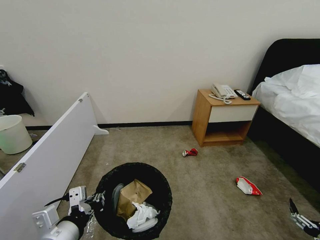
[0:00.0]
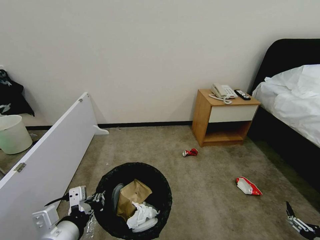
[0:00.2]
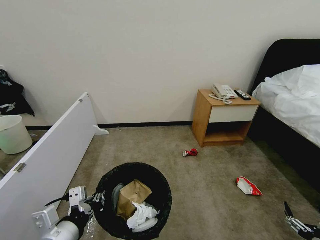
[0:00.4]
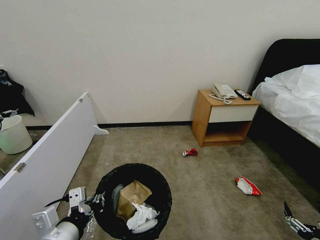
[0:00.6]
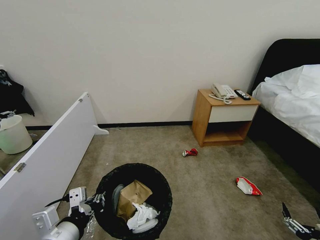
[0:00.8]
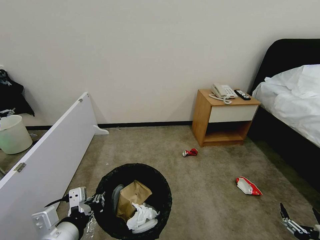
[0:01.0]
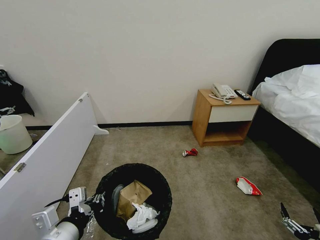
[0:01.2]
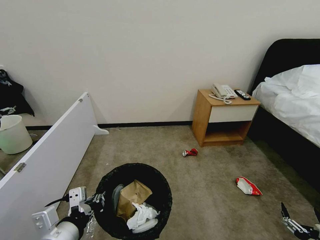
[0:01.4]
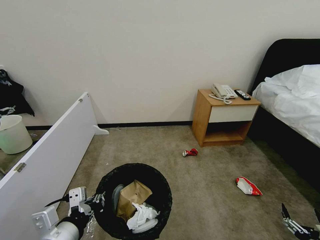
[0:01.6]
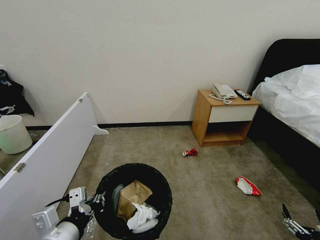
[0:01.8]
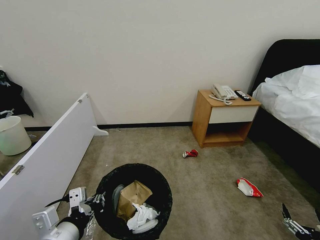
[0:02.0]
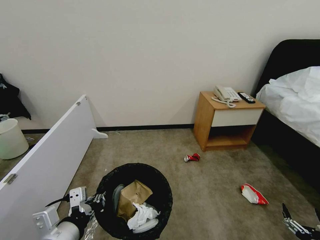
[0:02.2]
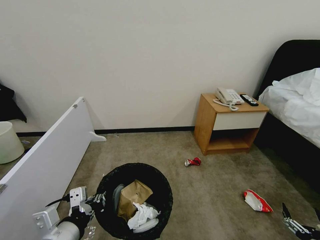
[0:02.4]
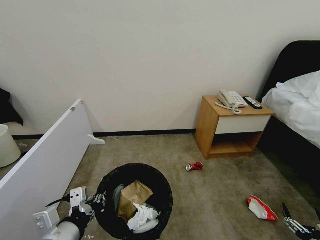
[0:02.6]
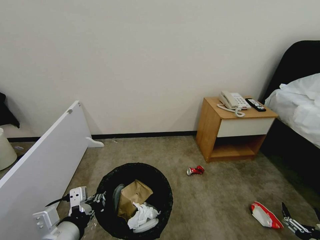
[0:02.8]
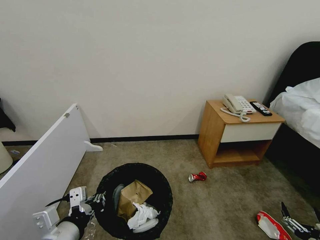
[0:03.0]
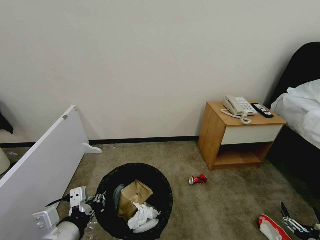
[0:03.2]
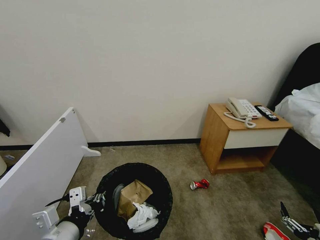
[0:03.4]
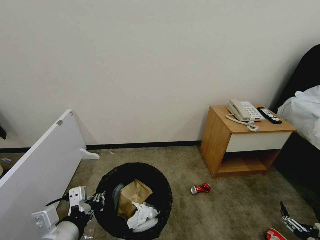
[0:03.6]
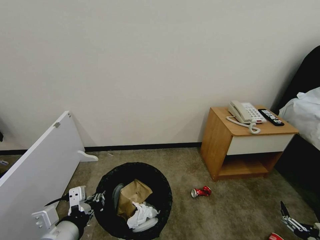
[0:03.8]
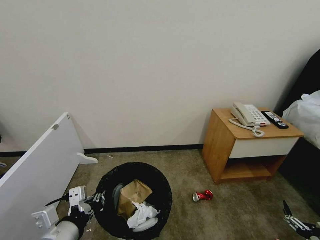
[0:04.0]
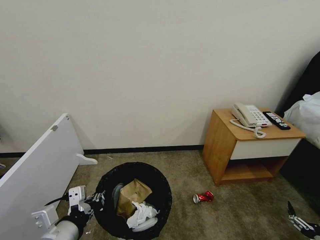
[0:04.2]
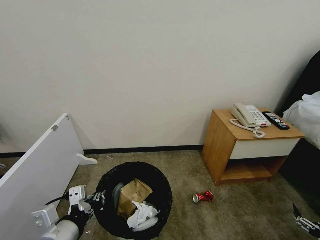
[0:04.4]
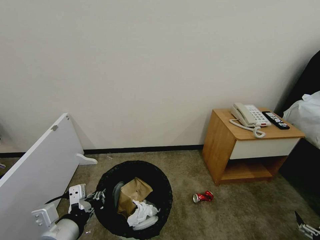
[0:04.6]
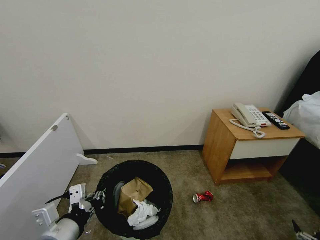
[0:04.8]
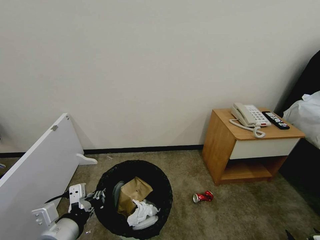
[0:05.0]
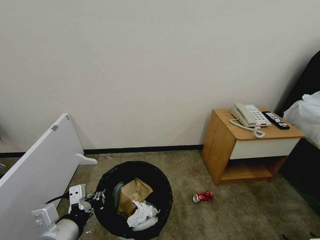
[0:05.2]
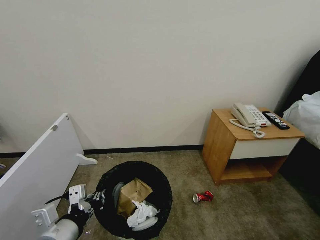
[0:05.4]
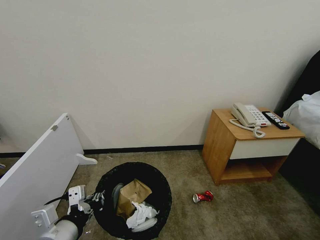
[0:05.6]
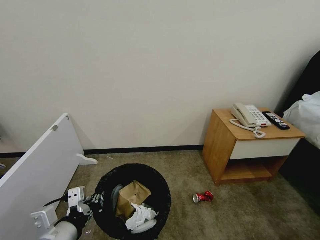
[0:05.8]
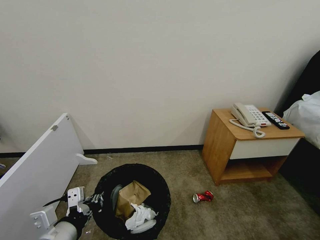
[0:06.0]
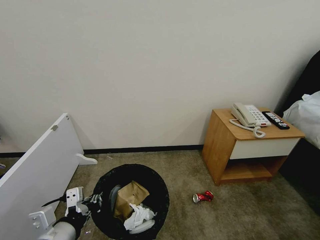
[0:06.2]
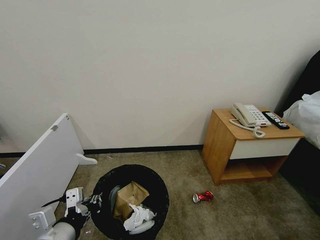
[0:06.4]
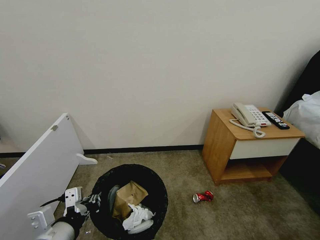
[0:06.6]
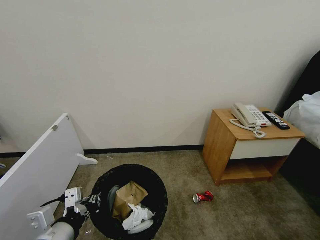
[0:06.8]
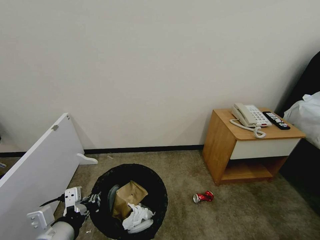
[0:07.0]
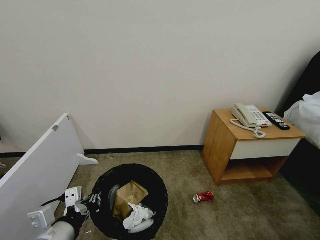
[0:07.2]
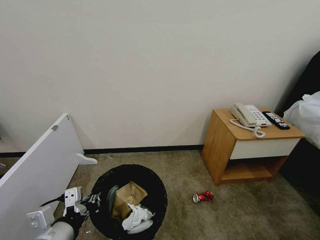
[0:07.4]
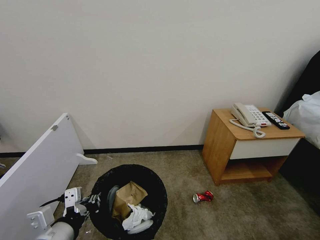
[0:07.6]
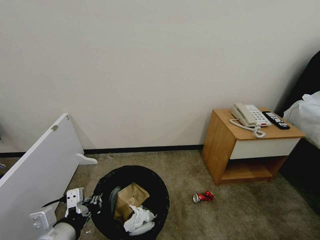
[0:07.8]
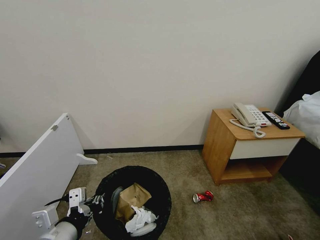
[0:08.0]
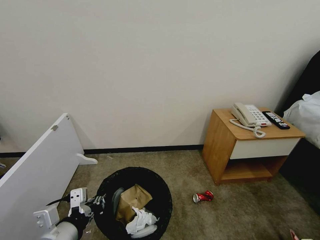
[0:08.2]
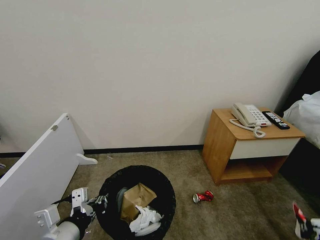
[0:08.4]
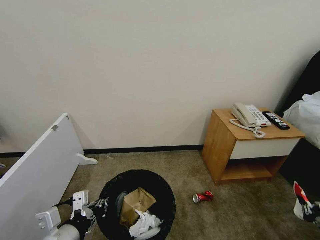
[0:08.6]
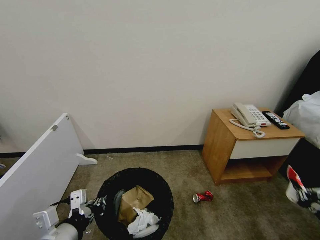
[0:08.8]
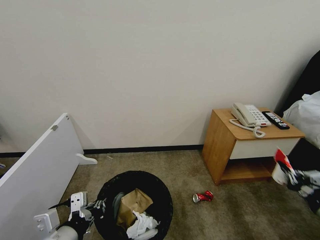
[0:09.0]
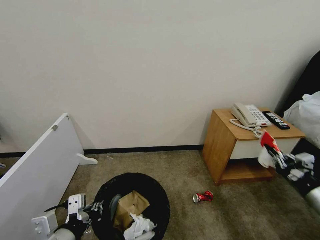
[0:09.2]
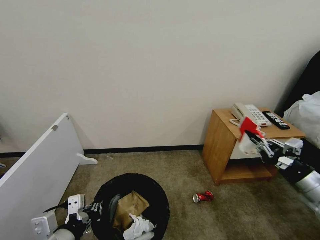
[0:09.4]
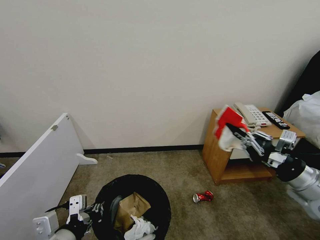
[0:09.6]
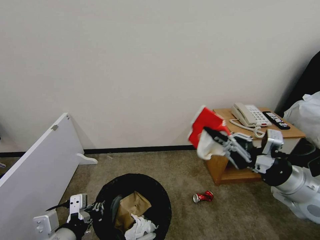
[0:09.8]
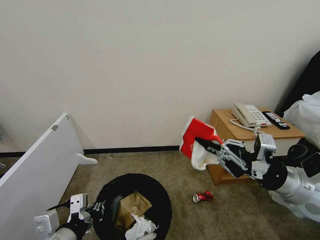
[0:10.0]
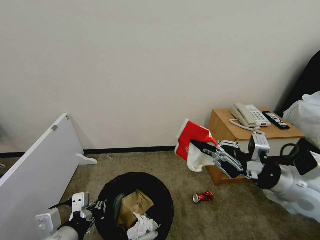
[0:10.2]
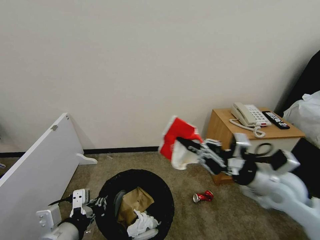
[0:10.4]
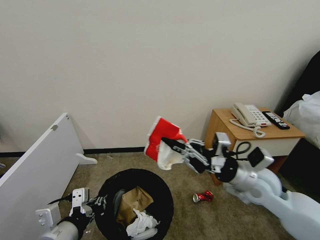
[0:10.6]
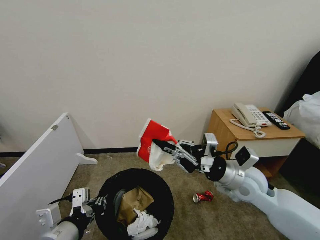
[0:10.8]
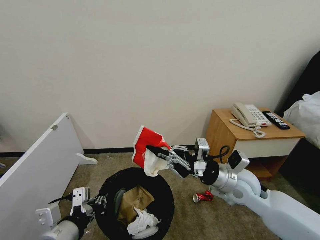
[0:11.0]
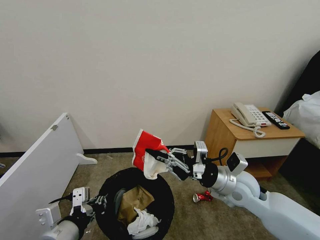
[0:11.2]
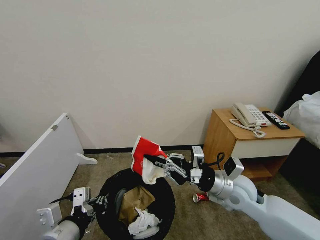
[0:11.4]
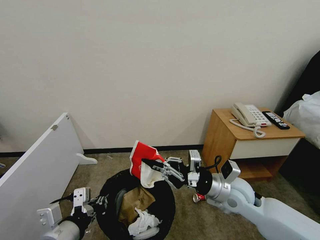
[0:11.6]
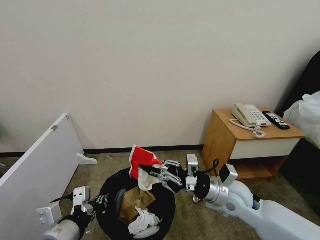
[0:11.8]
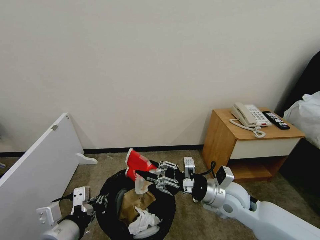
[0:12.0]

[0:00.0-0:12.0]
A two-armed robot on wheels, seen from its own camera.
Task of the whole recording: Pick up the trash bin, then pick up the garbage from the floor and place it into the trash bin.
0:00.0 to 0:01.6: The grippers move only a little.
0:03.0 to 0:04.4: The right gripper ends up some 5 cm from where it was.
0:04.4 to 0:06.0: The right gripper goes about 10 cm downward.
0:06.0 to 0:07.6: The right gripper goes roughly 5 cm downward, and closes its fingers.
0:07.6 to 0:09.0: The right gripper is displaced upward by approximately 25 cm.
0:09.0 to 0:10.4: The right gripper shifts some 25 cm to the left, upward and forward.
0:10.4 to 0:12.0: The right gripper travels to the left and downward by about 15 cm, and opens up.

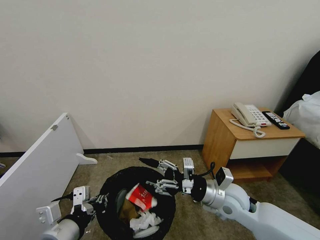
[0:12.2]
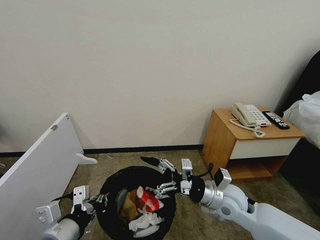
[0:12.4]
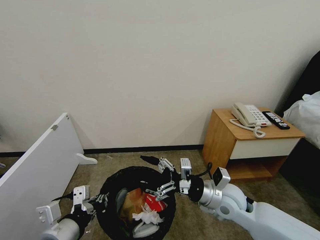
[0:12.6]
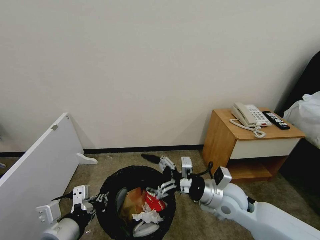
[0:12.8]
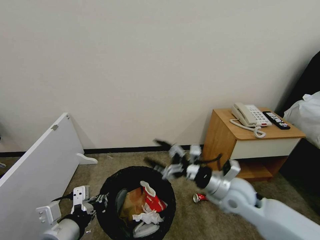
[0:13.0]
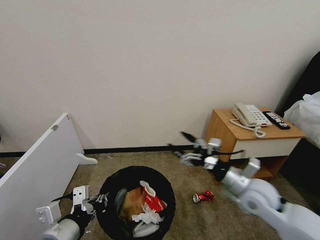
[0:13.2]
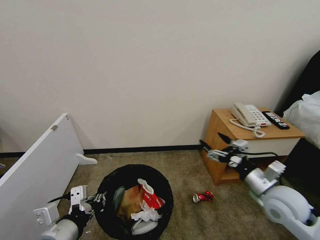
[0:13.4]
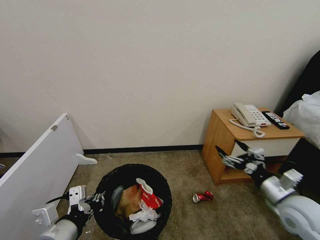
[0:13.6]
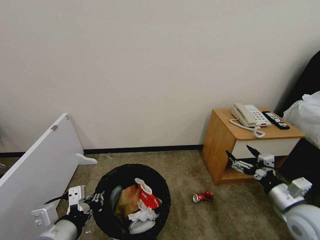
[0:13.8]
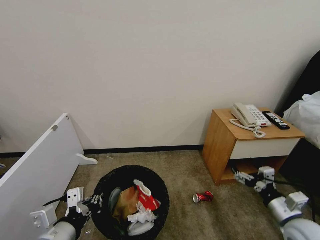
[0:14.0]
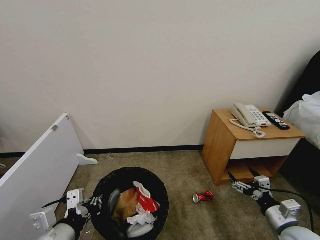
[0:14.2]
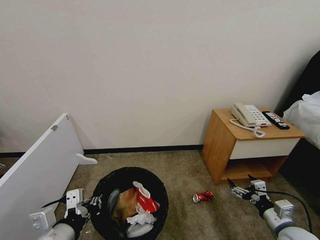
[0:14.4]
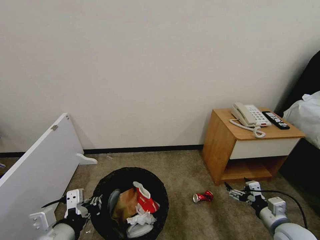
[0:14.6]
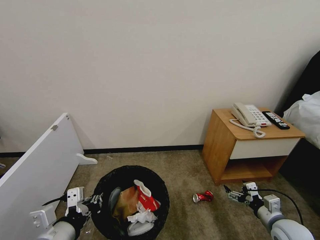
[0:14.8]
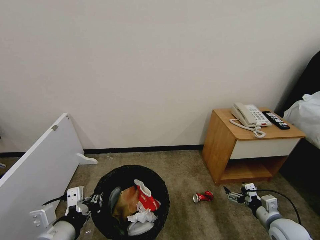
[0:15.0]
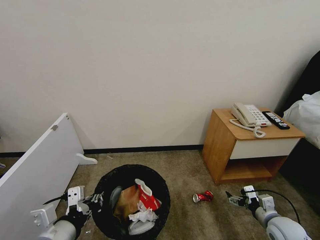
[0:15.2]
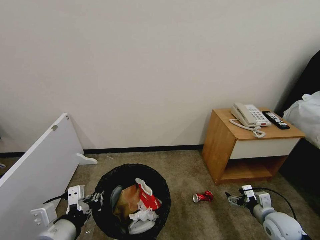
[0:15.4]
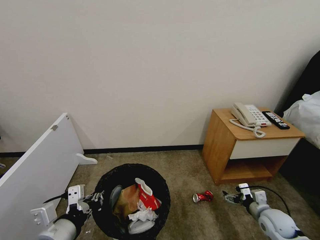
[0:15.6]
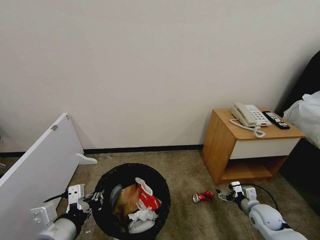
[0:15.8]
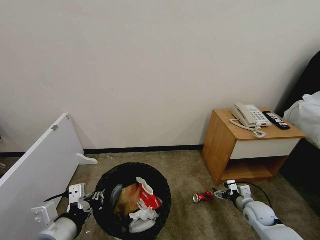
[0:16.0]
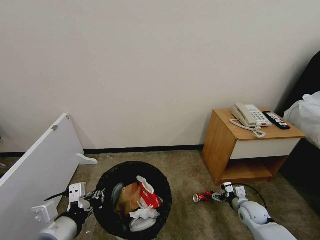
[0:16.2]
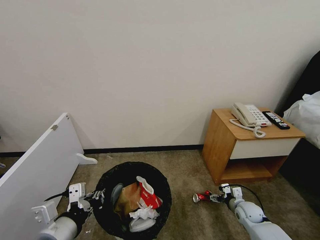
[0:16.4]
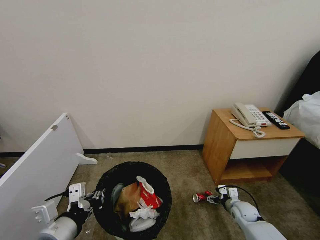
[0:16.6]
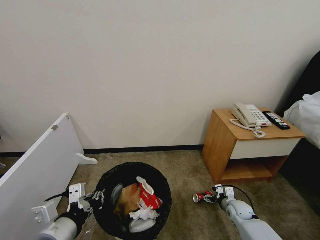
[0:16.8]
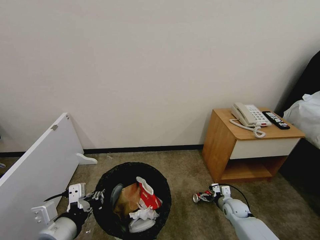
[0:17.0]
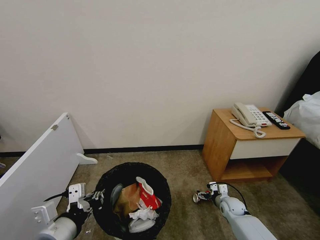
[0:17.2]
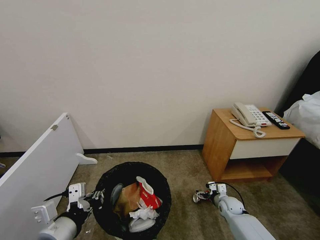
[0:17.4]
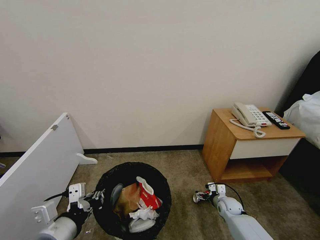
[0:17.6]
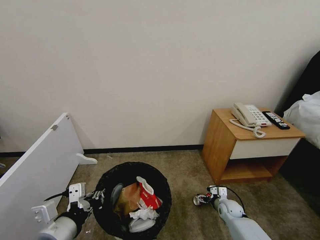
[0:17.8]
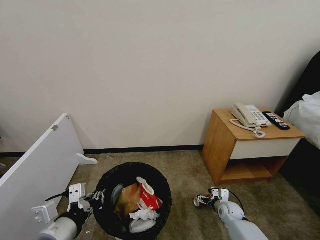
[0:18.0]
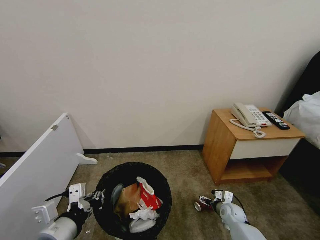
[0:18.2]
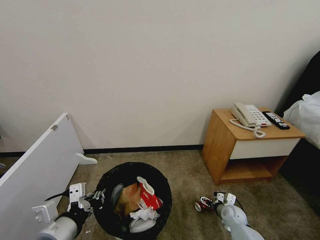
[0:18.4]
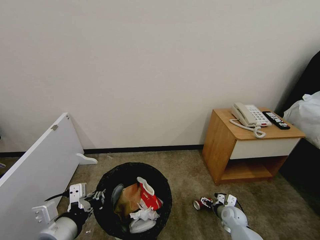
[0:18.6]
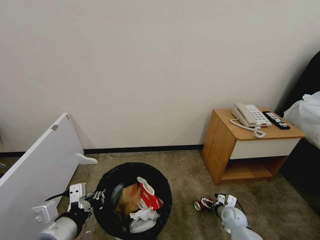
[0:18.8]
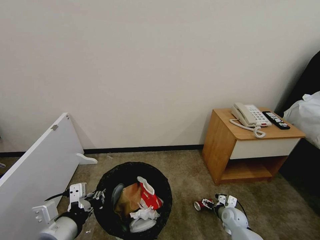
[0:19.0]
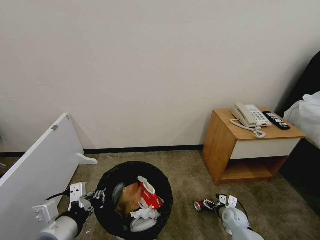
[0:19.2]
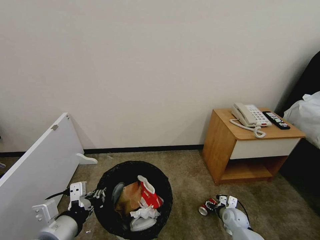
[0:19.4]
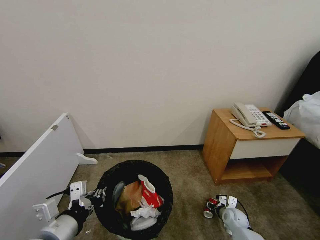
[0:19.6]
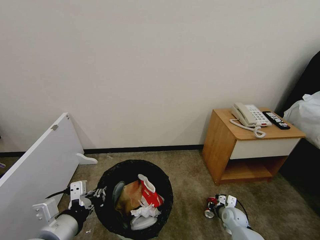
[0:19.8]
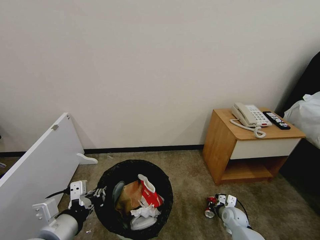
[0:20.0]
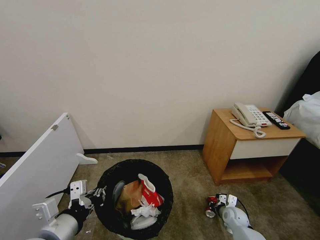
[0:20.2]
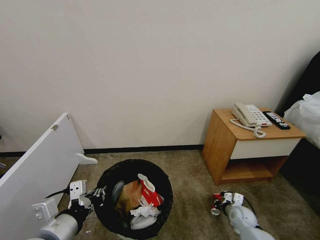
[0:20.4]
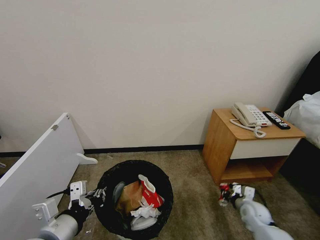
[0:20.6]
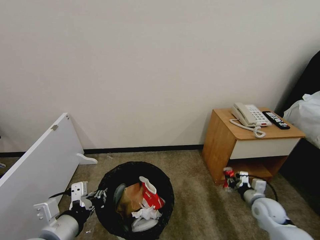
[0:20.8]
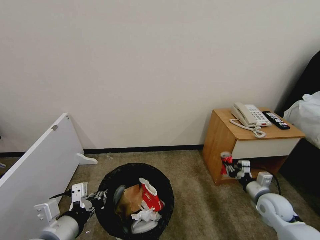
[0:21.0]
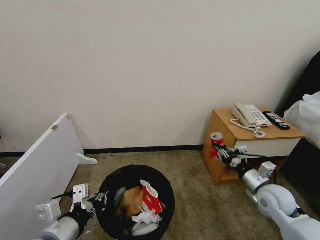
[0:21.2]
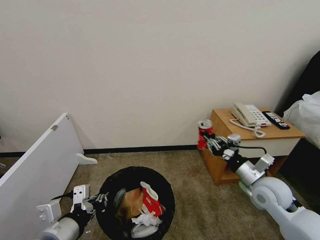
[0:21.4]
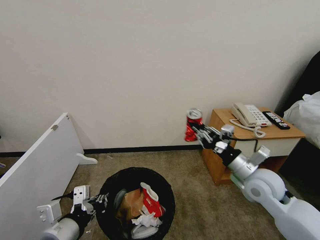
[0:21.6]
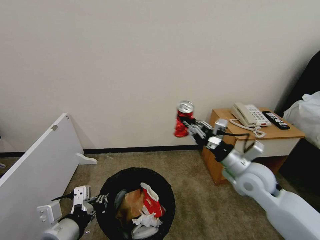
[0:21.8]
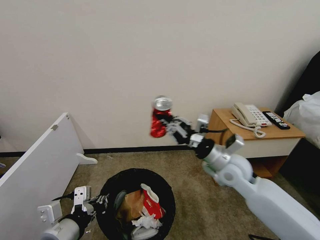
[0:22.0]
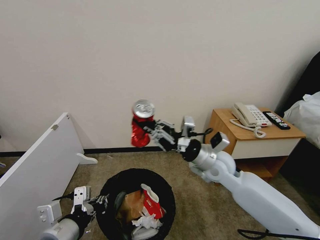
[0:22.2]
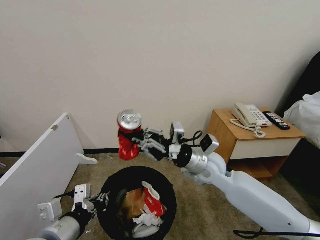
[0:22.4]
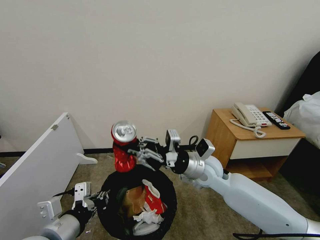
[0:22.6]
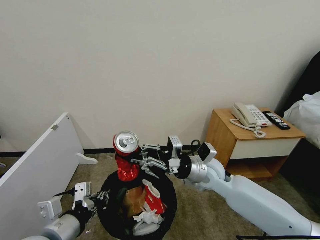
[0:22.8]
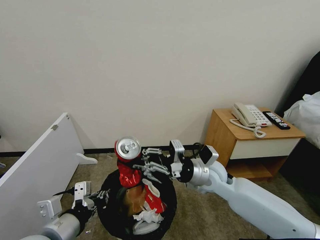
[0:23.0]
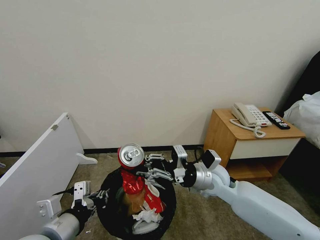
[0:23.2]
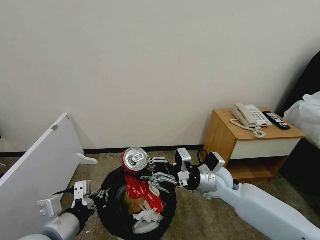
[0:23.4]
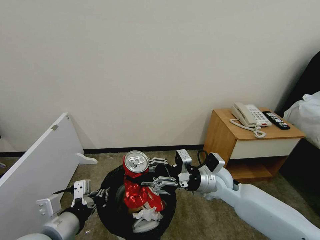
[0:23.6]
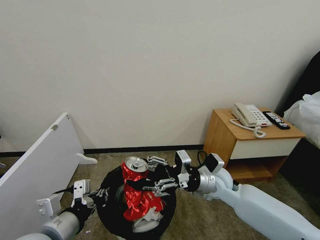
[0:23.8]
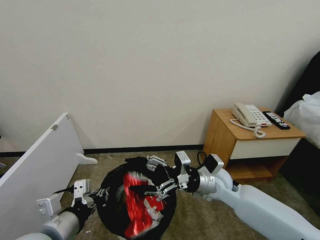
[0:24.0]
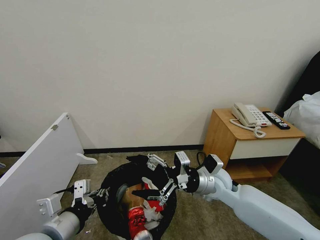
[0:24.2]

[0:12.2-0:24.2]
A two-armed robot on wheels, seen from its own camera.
Task of the whole recording: Pick up the trash bin, then pick up the garbage from the floor and place it into the trash bin.
0:12.2 to 0:13.8: The right gripper heads to the right, covering some 20 cm.
0:13.8 to 0:15.2: The right gripper goes about 10 cm downward.
0:15.2 to 0:16.6: The right gripper moves forward and downward, about 15 cm.
0:18.2 to 0:19.8: The right gripper closes its fingers.
0:19.8 to 0:21.2: The right gripper goes some 25 cm upward.
0:21.2 to 0:22.6: The right gripper travels to the left by some 20 cm.
0:22.6 to 0:24.2: The right gripper changes place by roughly 5 cm, and opens its fingers.
